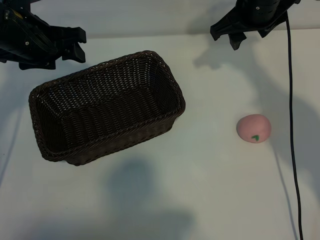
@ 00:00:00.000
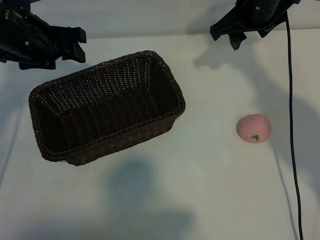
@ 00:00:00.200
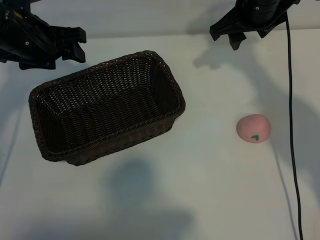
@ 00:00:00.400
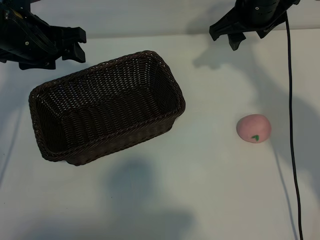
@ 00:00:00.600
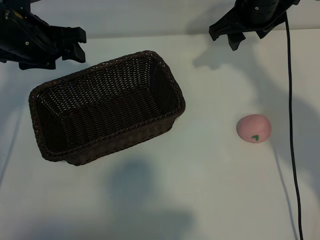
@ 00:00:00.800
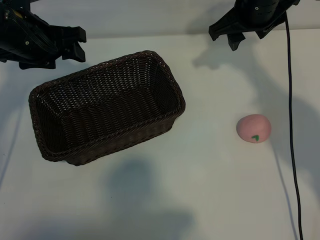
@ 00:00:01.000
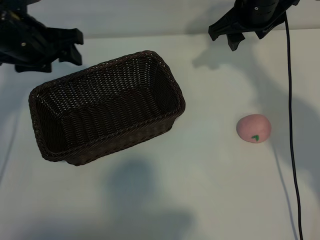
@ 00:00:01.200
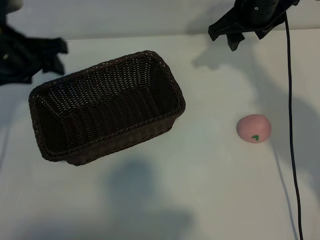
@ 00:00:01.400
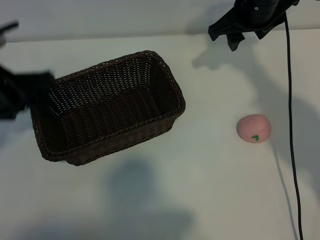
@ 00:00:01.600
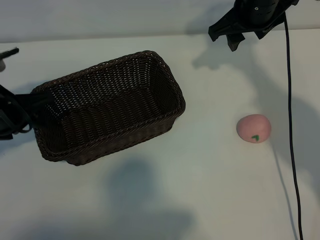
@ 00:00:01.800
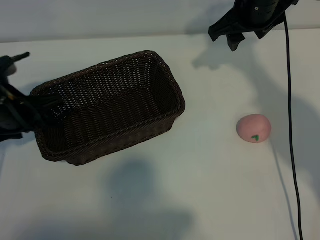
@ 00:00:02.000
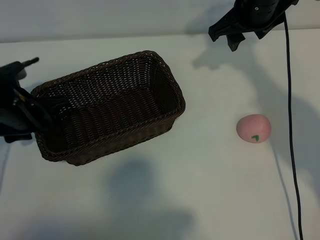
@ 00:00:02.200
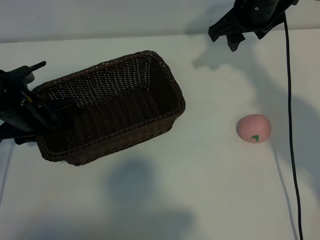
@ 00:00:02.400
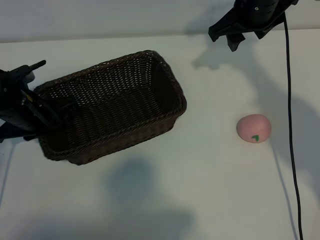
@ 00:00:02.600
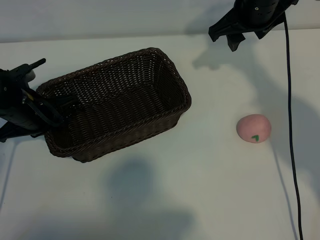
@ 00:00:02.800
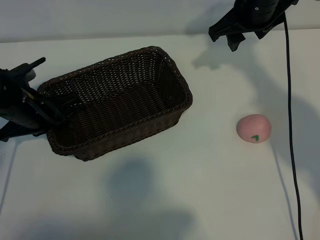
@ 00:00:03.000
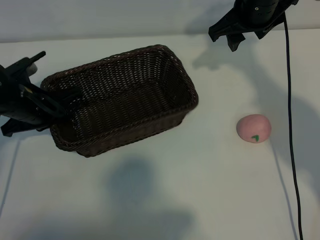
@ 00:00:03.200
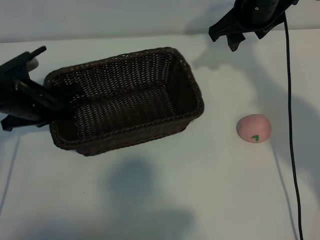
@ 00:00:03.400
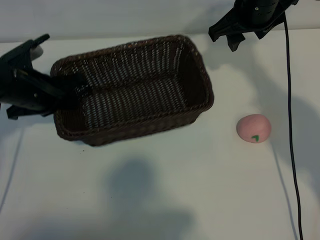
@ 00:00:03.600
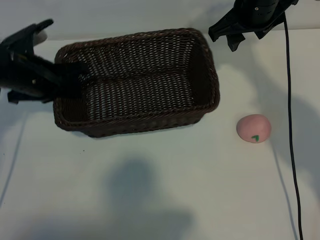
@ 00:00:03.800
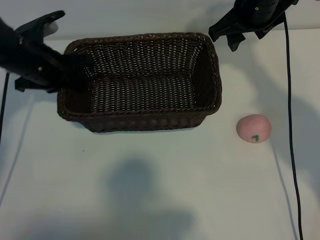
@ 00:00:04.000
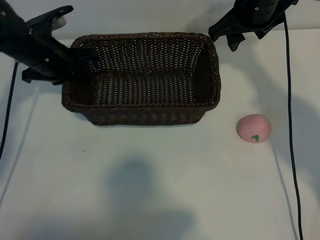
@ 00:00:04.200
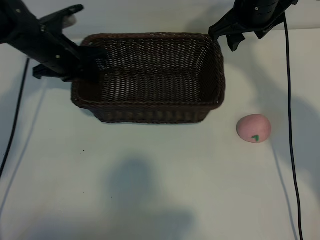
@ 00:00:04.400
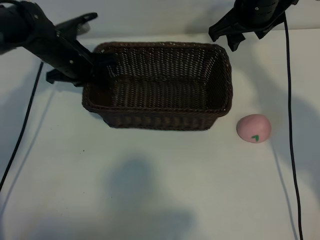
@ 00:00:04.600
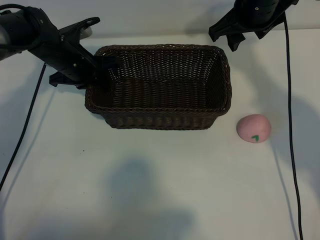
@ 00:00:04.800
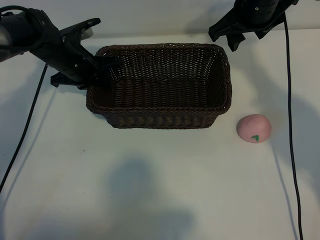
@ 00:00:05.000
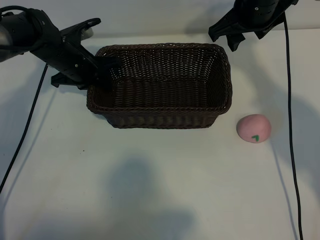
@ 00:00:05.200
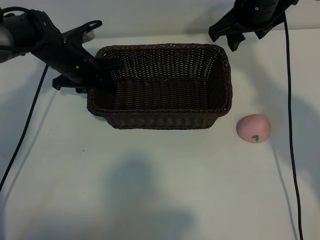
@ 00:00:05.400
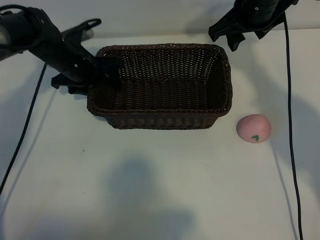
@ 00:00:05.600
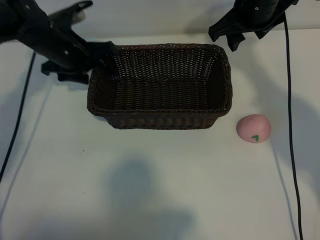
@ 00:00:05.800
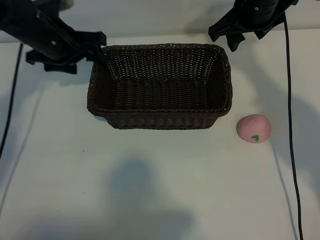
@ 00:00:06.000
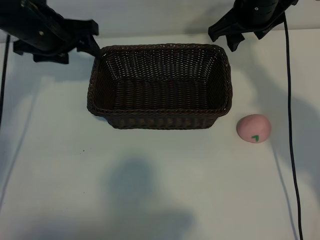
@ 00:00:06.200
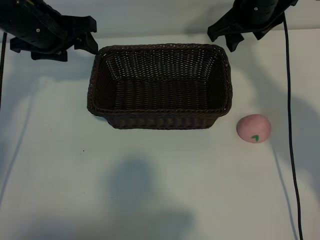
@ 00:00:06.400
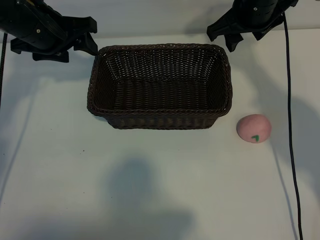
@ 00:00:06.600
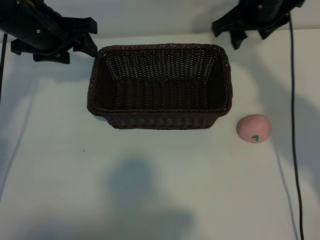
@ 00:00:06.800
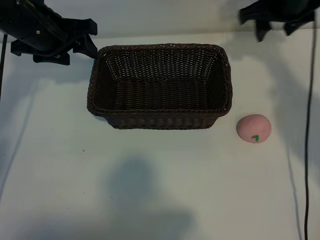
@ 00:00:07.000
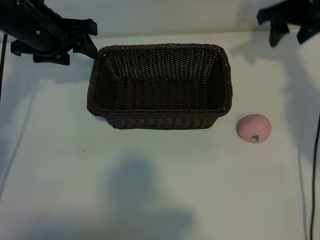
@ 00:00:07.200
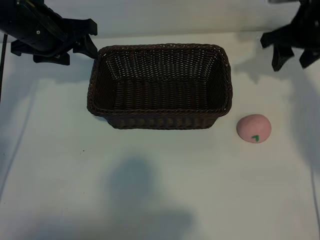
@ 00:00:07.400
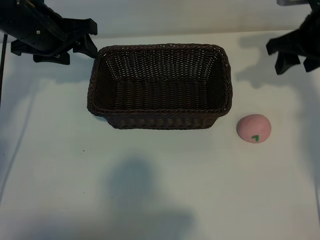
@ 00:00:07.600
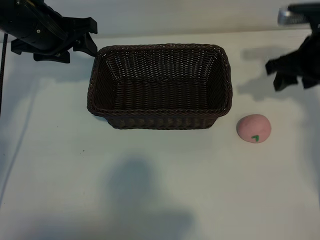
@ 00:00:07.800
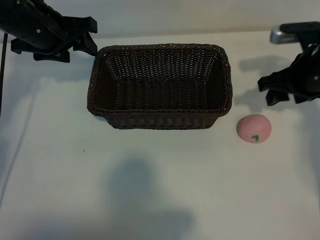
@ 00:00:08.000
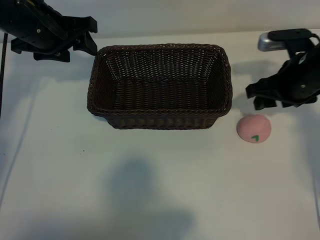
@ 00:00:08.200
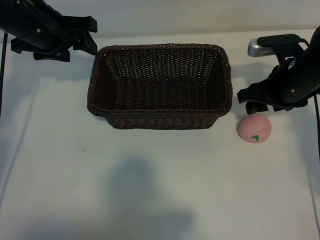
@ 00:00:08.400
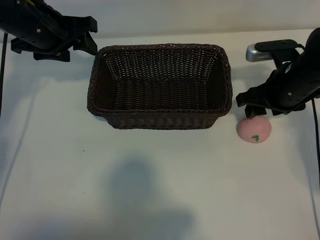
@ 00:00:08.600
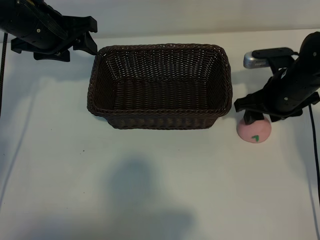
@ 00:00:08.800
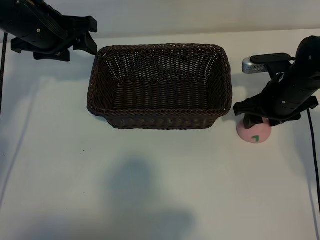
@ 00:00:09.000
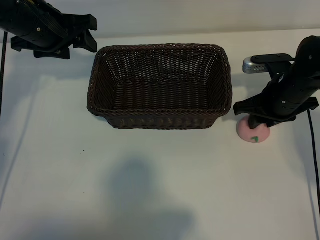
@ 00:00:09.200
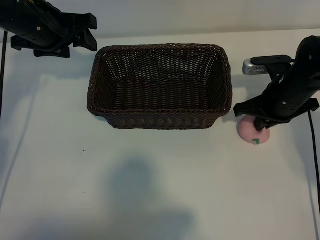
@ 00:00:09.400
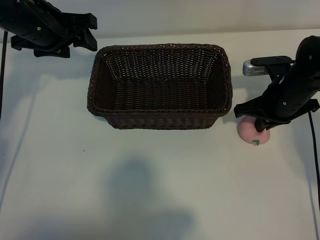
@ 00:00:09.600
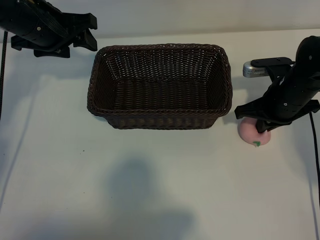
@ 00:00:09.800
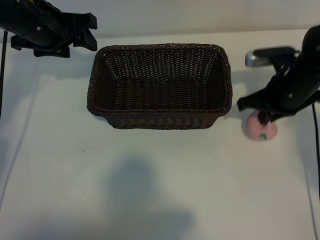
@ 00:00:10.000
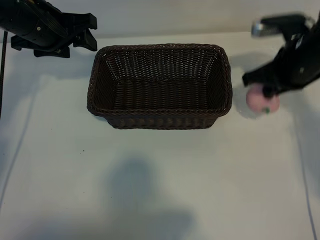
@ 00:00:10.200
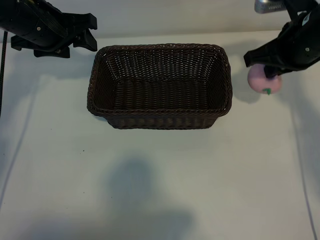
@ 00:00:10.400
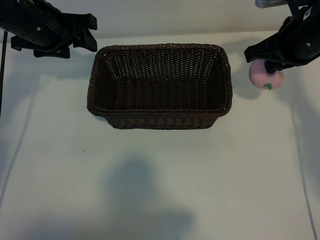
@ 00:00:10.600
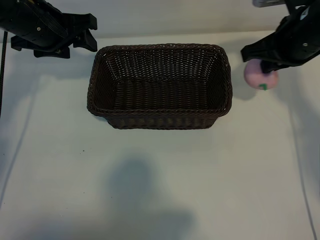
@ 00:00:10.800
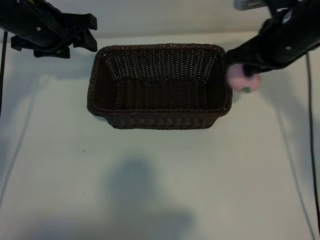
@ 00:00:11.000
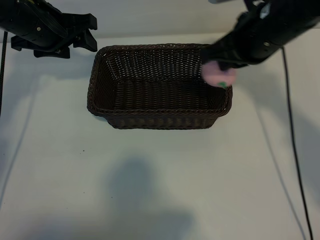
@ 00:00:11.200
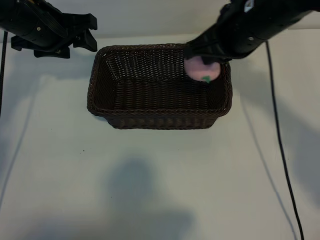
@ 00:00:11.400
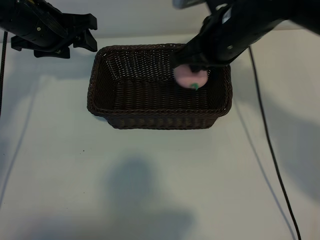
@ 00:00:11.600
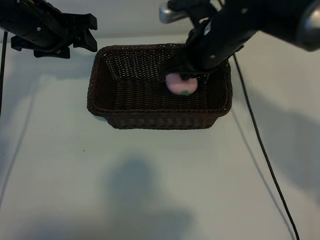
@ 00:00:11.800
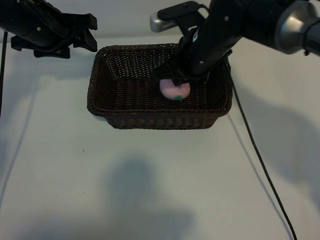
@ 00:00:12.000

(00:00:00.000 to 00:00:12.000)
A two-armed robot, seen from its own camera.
Task of the whole recording: pick up the peach and put it into the basket.
Step, 00:00:01.200 - 00:00:02.800: Grasp the basket with left gripper.
Step, 00:00:03.000 - 00:00:05.600: Place the basket in the center of view with left gripper.
Step, 00:00:05.800 - 00:00:09.400: Grasp the peach with right gripper.
